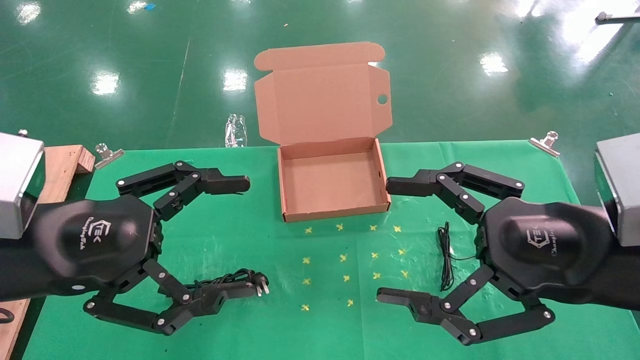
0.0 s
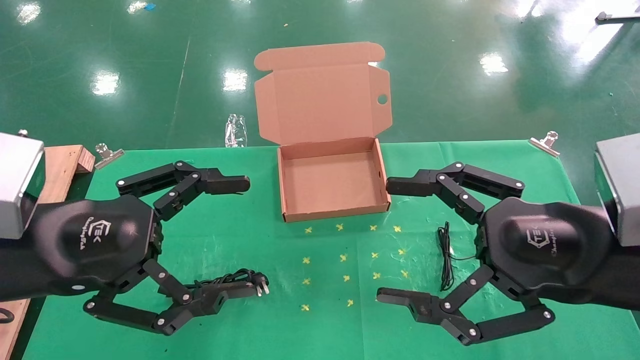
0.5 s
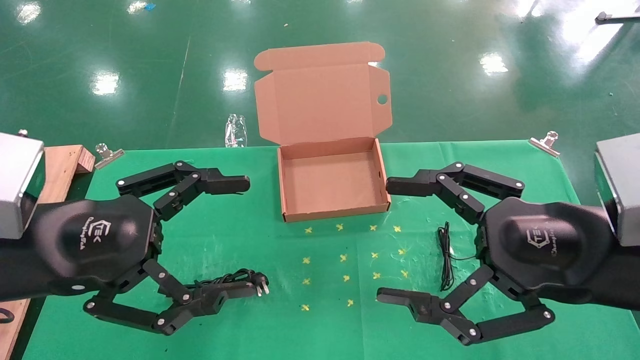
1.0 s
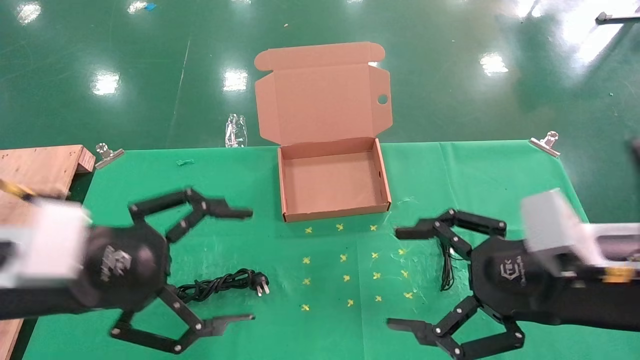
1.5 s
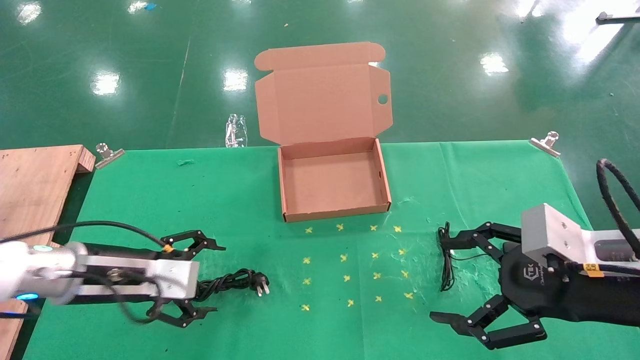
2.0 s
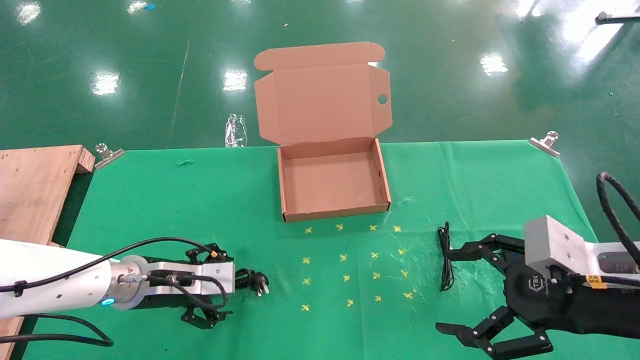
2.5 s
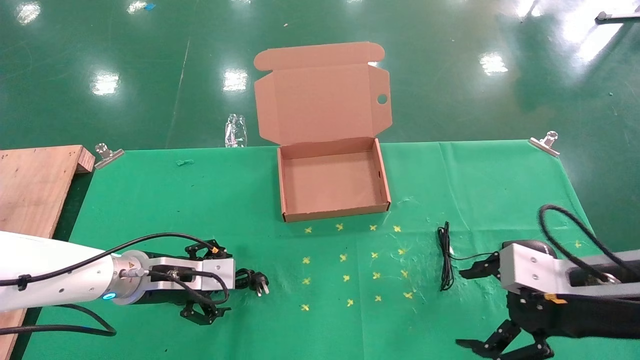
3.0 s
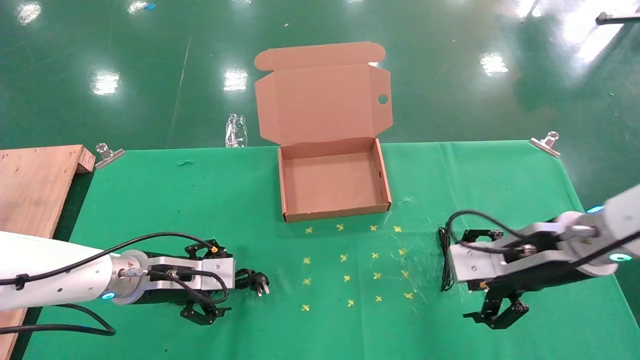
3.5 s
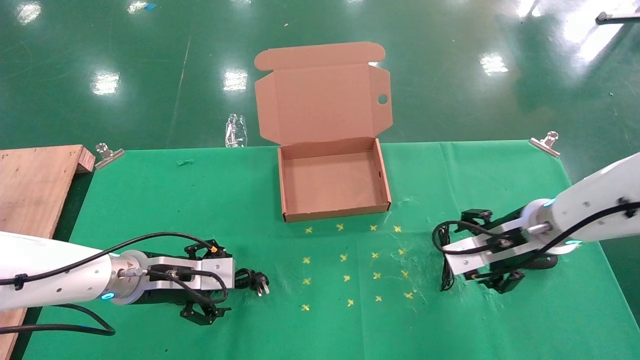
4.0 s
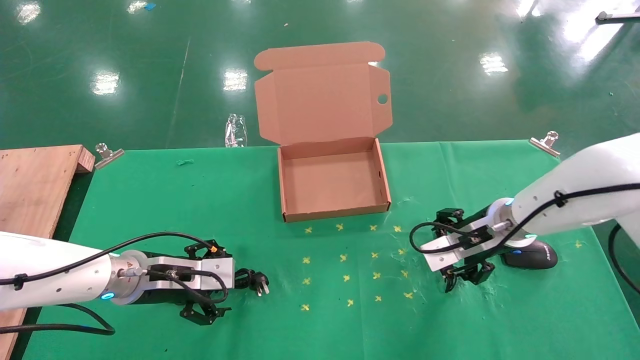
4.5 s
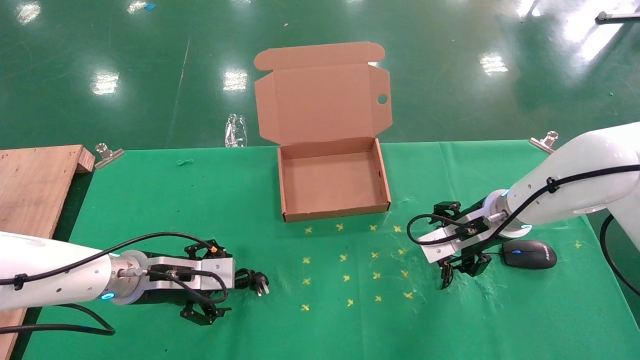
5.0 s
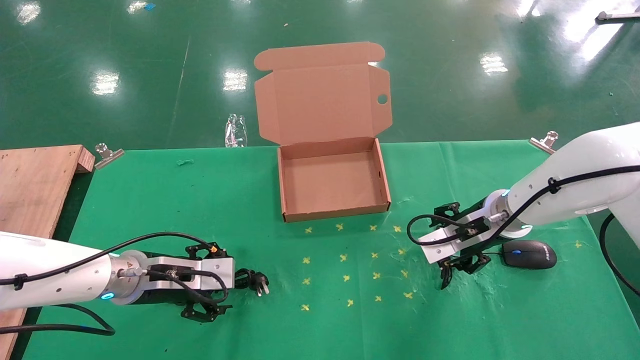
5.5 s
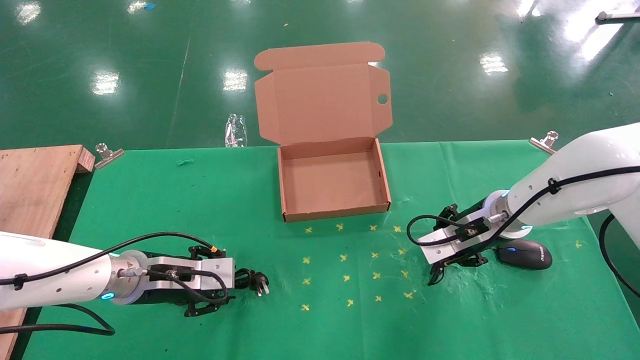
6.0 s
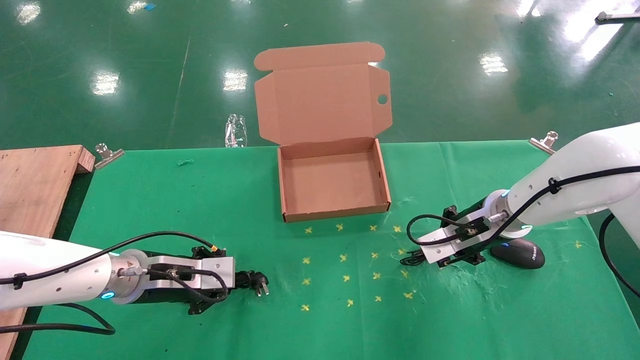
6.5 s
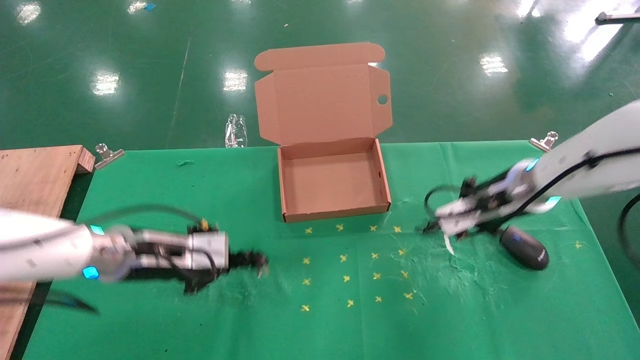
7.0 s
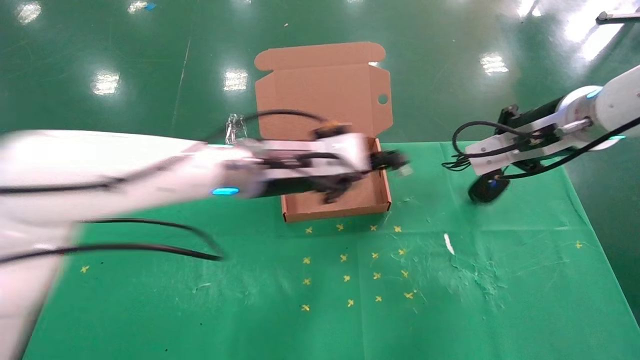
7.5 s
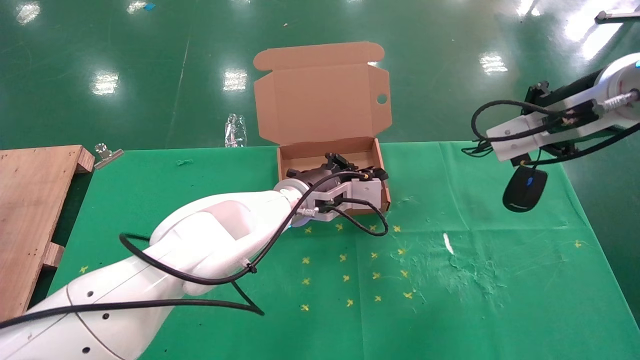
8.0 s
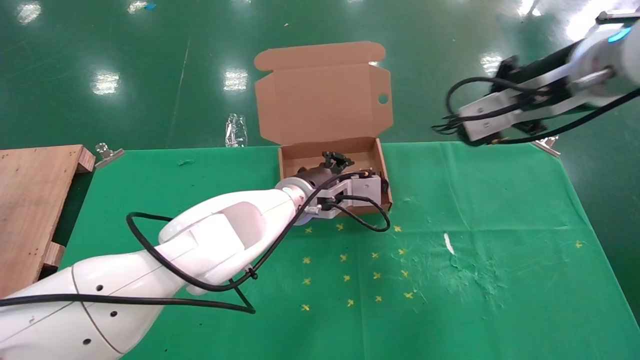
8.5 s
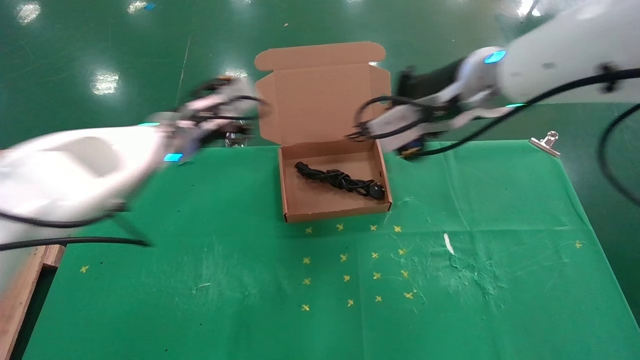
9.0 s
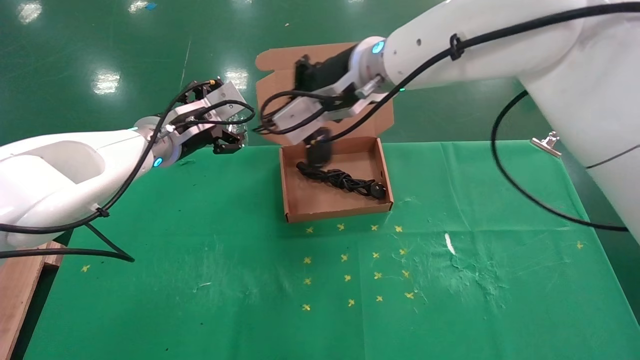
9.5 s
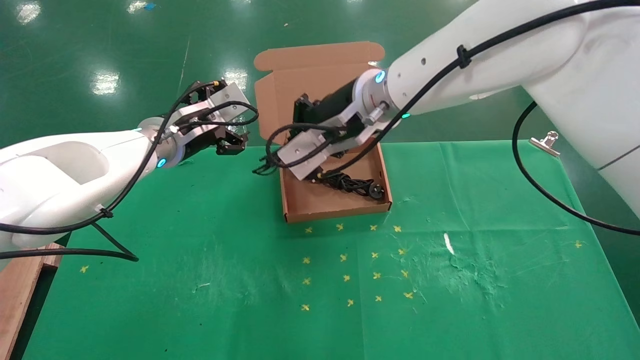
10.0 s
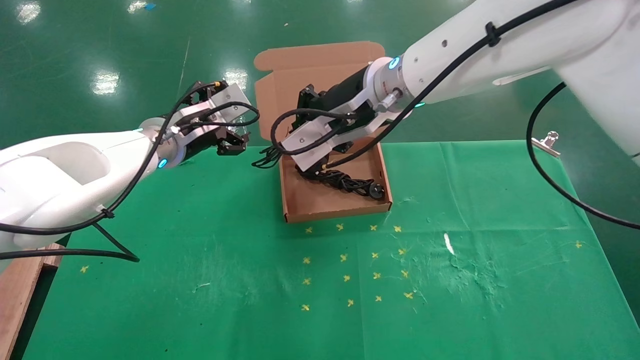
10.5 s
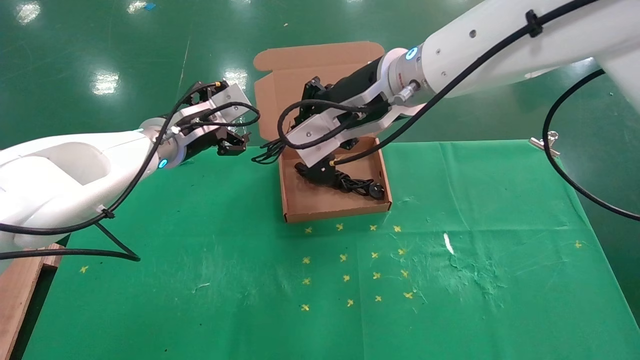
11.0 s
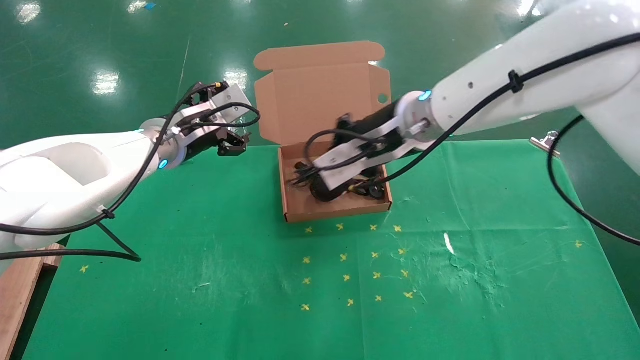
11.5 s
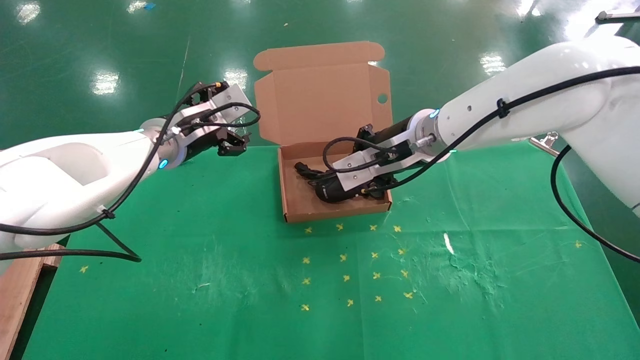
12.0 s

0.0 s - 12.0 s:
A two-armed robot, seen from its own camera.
Task of the whole recording: grasp data cable left put into box grasp mouse right put into box.
Step, 1.5 s - 6.5 s: Simultaneously pick up the mouse and power cord from the accessory packaging area.
Step, 7.0 s - 12.0 s: Place the mouse and power cord into the box.
0.0 s - 2.0 s: The left gripper moves downward and forward, about 15 cm, while the right gripper moves about 5 cm.
2.0 s - 4.0 s: The right gripper goes some 15 cm forward. Meanwhile the left gripper ends up roughly 5 cm from where it was.
4.0 s - 6.0 s: The right gripper ends up approximately 5 cm from where it was, and closes, while the left gripper closes.
6.0 s - 8.0 s: The right gripper heads upward and backward, covering approximately 20 cm, and closes. Meanwhile the left gripper moves to the right, about 20 cm, and closes its fingers.
8.0 s - 10.0 s: The right gripper heads to the left, covering approximately 25 cm. Meanwhile the left gripper travels to the left and upward by approximately 20 cm, and opens up.
10.0 s - 12.0 s: The right gripper moves to the right and downward, about 10 cm.

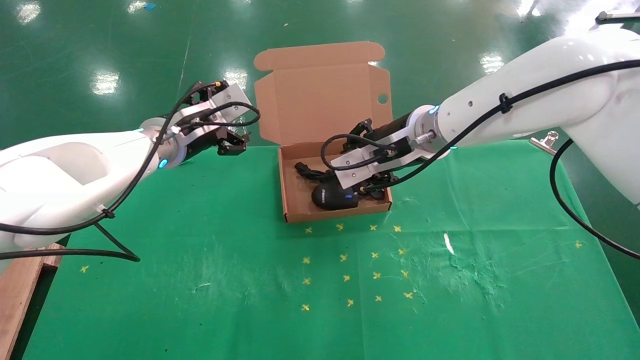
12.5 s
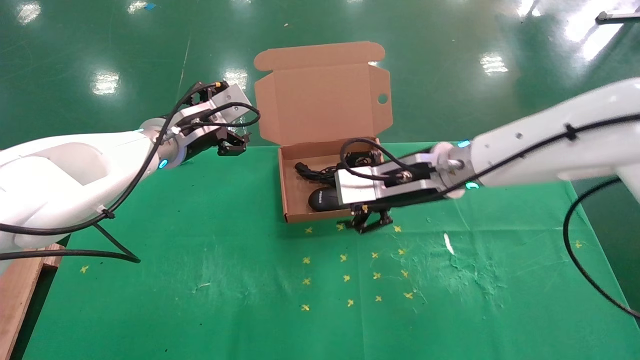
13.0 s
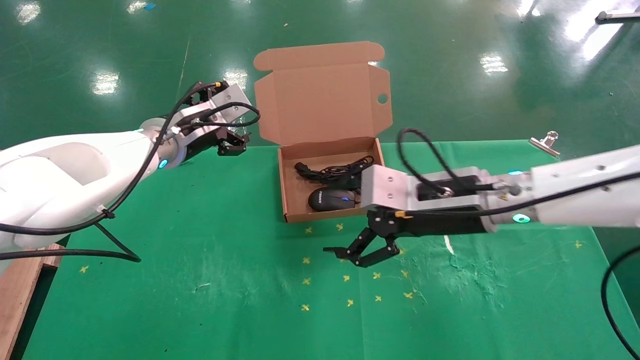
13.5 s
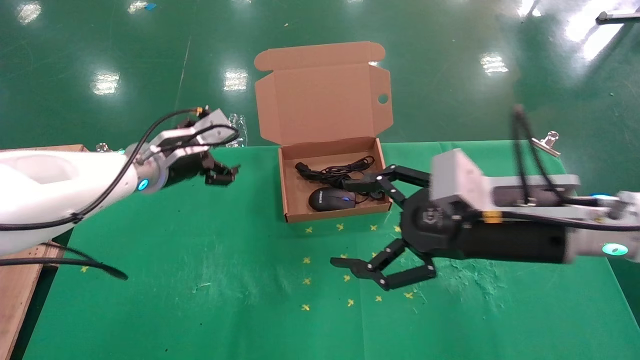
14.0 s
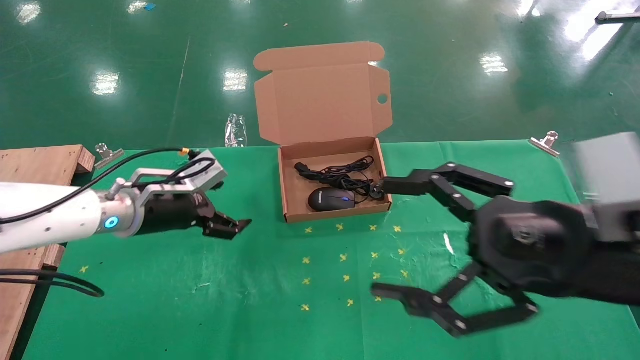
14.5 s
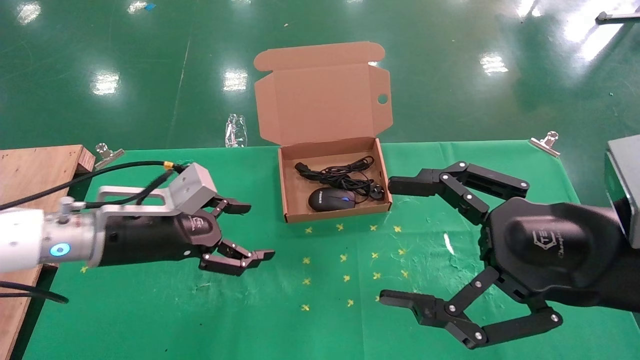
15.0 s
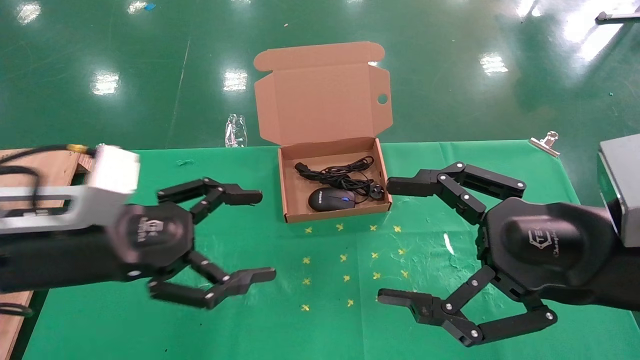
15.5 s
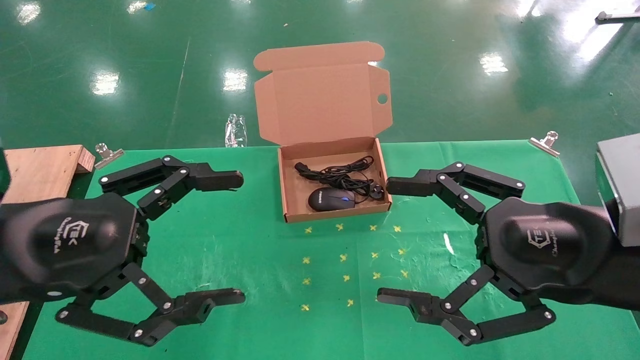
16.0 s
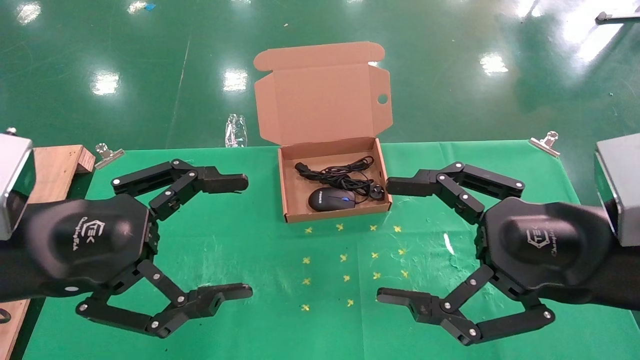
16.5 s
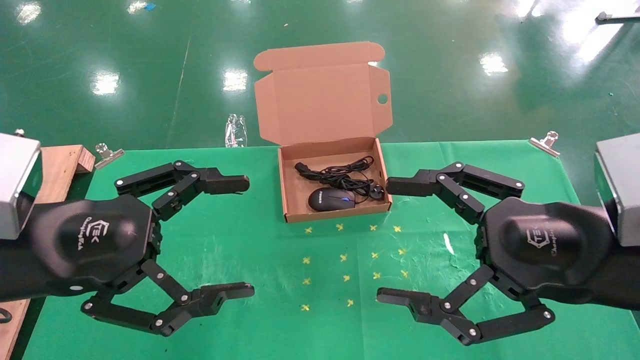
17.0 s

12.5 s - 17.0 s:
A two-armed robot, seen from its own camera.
Task of the whole recording: grasp data cable left put into box grasp mouse right put into box.
12.5 s - 14.5 s: The right gripper heads backward and to the right, covering approximately 25 cm, and opens, while the left gripper moves downward and backward, some 10 cm.
14.5 s - 17.0 s: The left gripper travels backward by approximately 20 cm.
